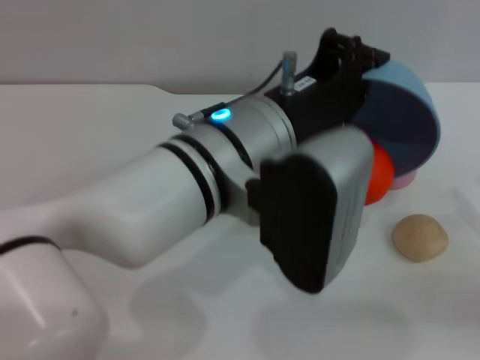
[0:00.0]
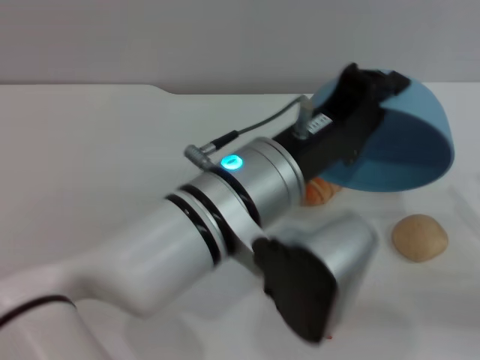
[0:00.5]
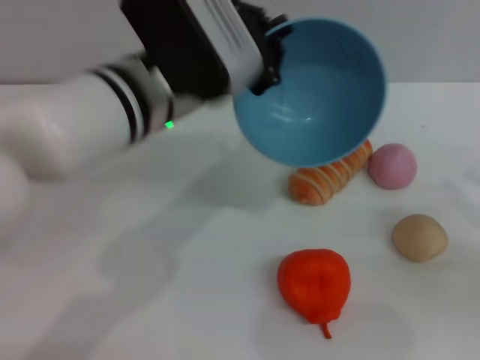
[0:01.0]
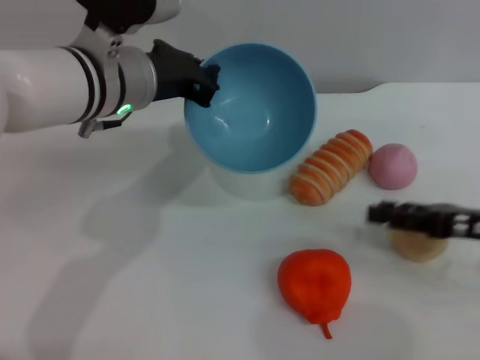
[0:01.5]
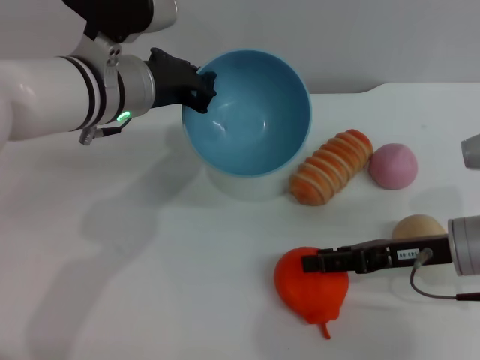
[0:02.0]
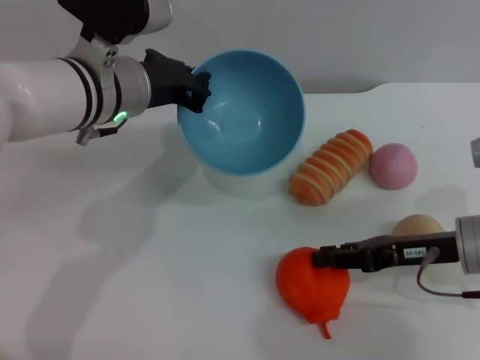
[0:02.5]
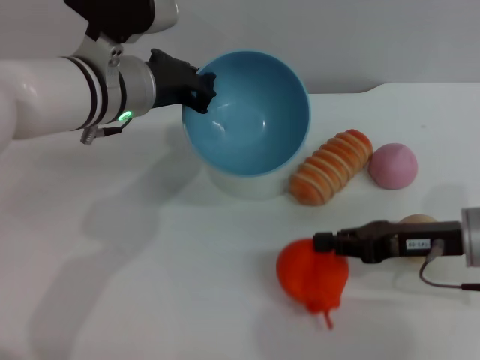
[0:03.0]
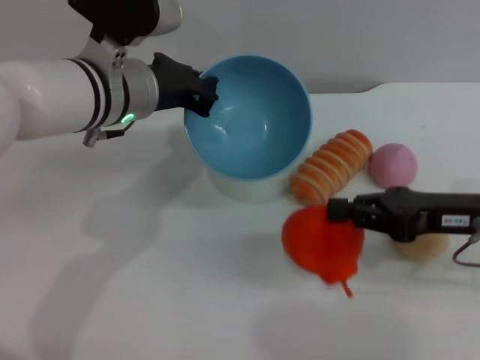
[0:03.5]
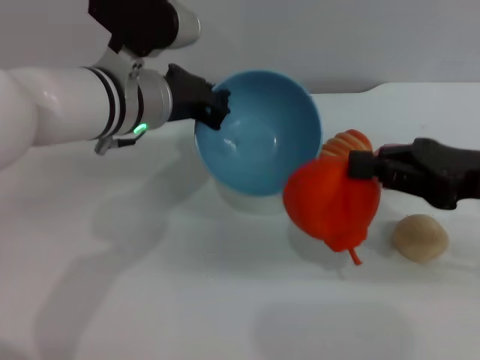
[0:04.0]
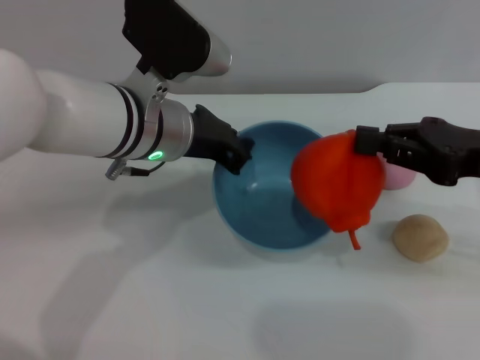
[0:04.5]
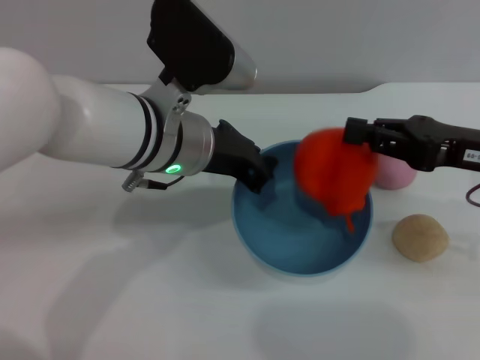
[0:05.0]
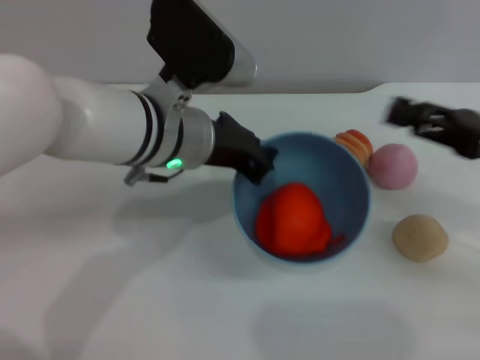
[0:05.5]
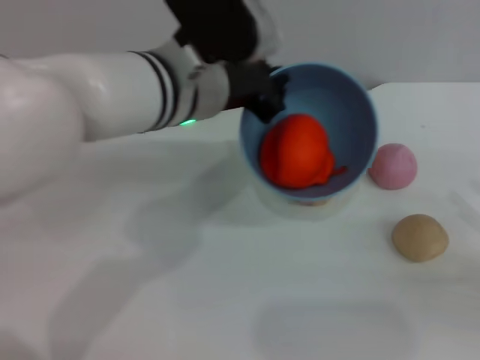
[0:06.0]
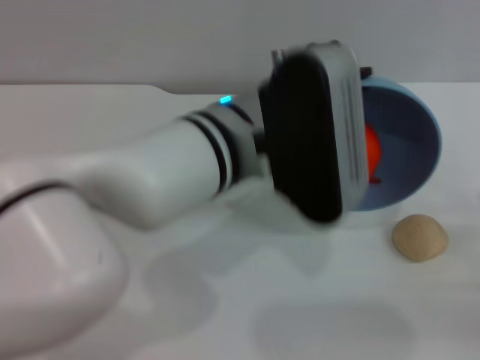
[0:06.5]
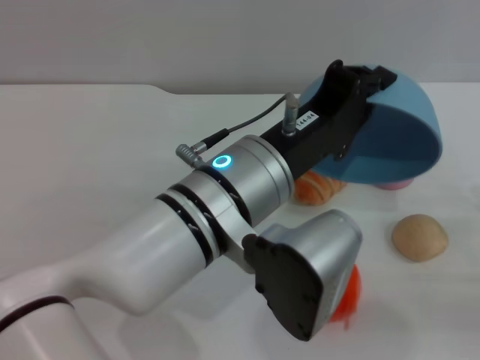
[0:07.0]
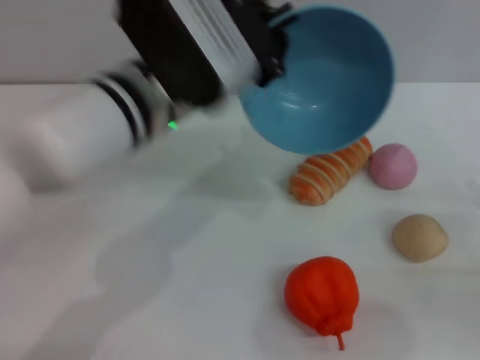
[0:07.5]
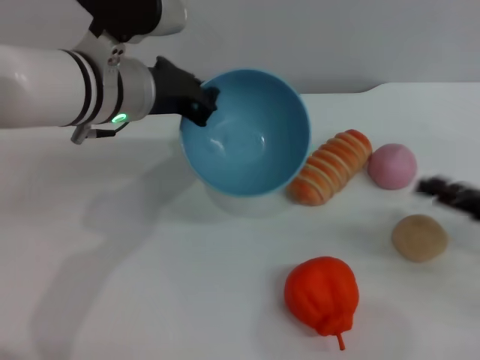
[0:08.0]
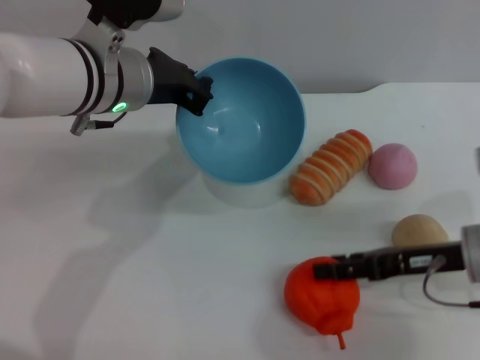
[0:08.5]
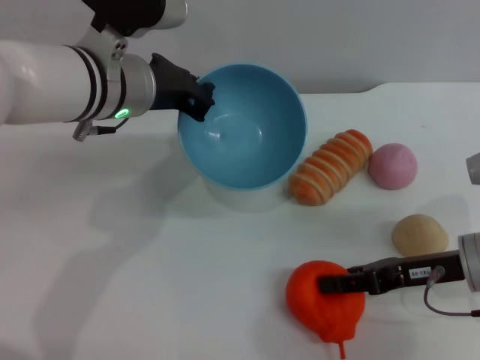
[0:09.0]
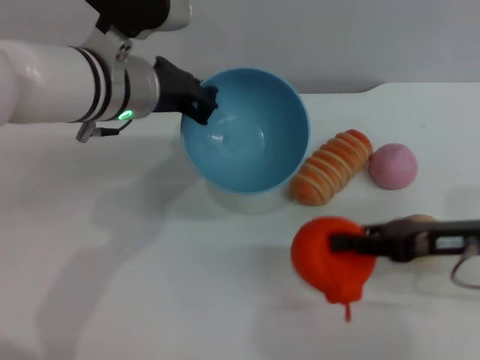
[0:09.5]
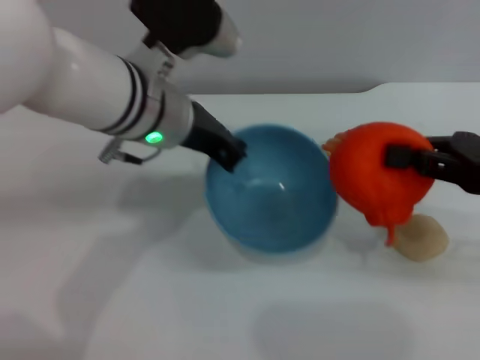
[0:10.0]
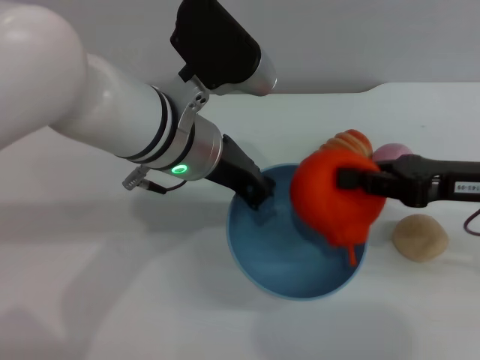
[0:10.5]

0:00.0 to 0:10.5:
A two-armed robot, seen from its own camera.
Task of the whole recording: put the orange into the blue bowl and pour it out repeatedly.
Step, 0:01.0 to 0:03.5: Pick up the orange with the right gripper.
Step, 0:04.5 to 0:05.0: Place the orange into the bowl.
Step, 0:05.5 to 0:07.0: Pour the orange out of the bowl.
Step, 0:07.5 to 0:09.5: Pick up the orange with the right gripper.
0:00.0 to 0:02.0: The right gripper heads to the left and forward, covering roughly 15 cm. Meanwhile the left gripper heads forward and to the left, covering some 15 cm.
0:02.0 to 0:04.0: The right gripper heads upward, covering roughly 10 cm, and closes.
0:04.0 to 0:06.5: The left gripper travels to the right and backward by about 10 cm, while the right gripper goes roughly 20 cm to the right, downward and backward, and opens.
0:06.5 to 0:08.5: Both grippers move to the left and forward, some 15 cm.
0:08.5 to 0:10.5: The right gripper moves upward, approximately 10 cm, and closes; the left gripper shifts some 5 cm to the right.

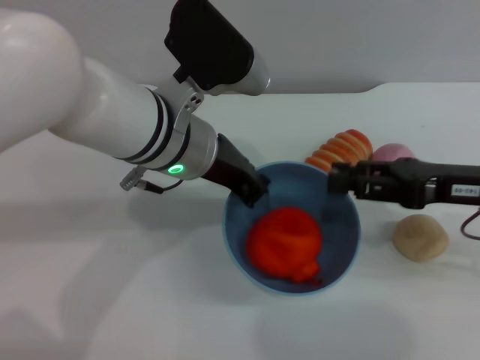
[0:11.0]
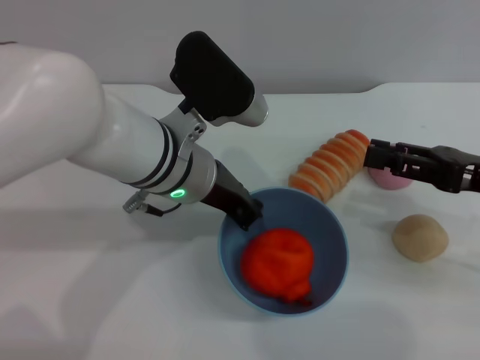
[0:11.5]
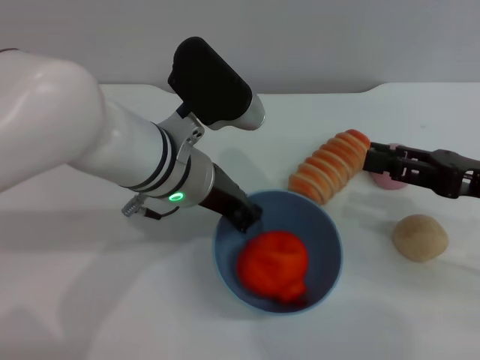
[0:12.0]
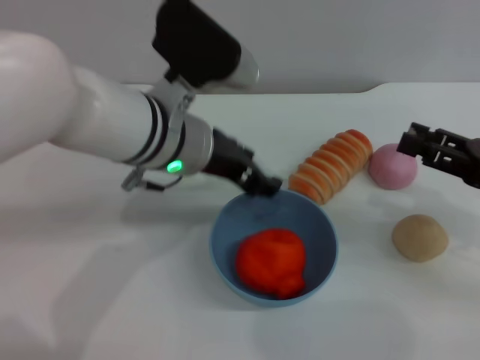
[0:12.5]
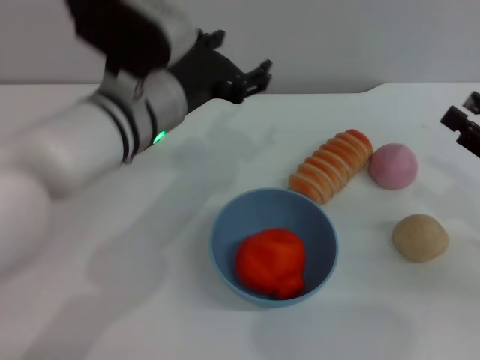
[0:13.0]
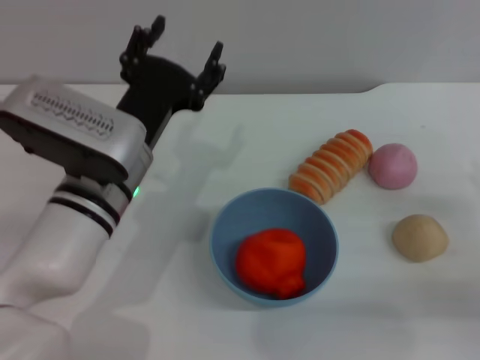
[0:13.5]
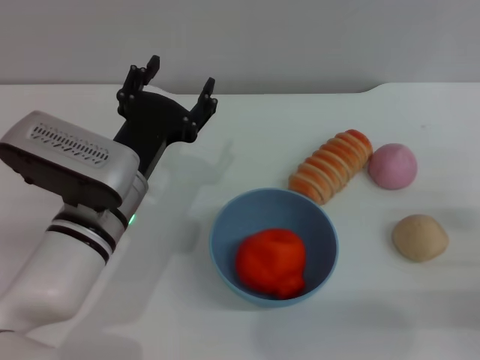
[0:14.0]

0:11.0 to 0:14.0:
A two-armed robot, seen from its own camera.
Task of the whole recording: put the orange into the blue bowl and pour it out repeatedly.
Step, 0:11.5 to 0:12.5: Place the bowl on the table.
0:11.0 to 0:12.5: The right gripper is displaced to the right by approximately 5 cm, and opens its fingers, while the left gripper opens.
0:12.5 to 0:14.0: The left gripper goes about 10 cm downward, backward and to the left, and opens its fingers; the right gripper shifts approximately 10 cm downward and backward.
